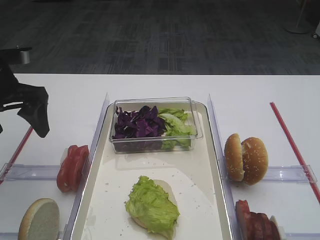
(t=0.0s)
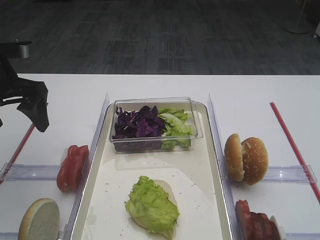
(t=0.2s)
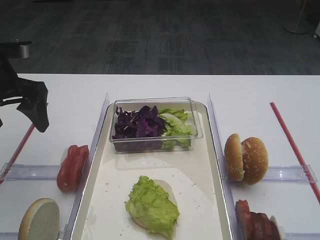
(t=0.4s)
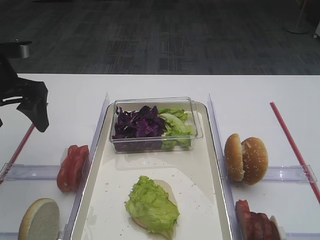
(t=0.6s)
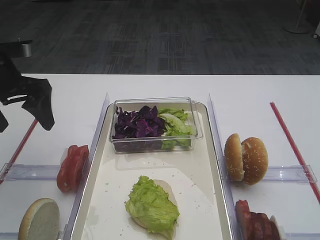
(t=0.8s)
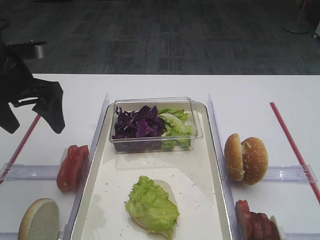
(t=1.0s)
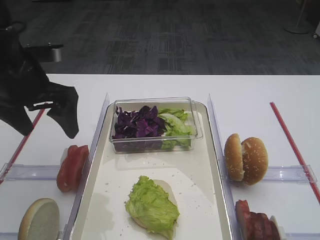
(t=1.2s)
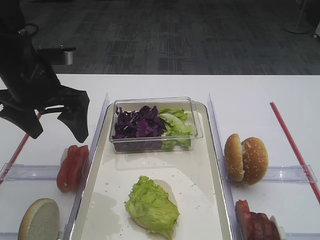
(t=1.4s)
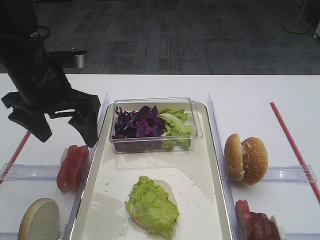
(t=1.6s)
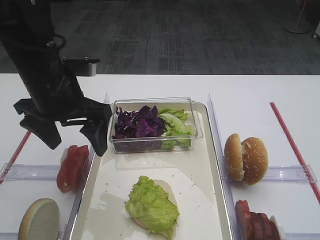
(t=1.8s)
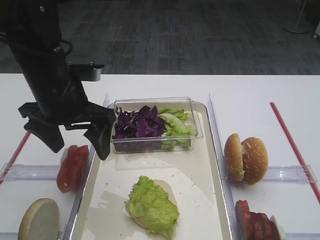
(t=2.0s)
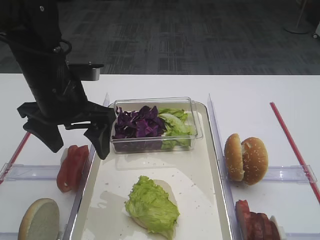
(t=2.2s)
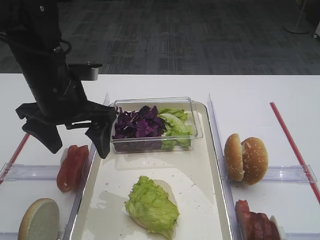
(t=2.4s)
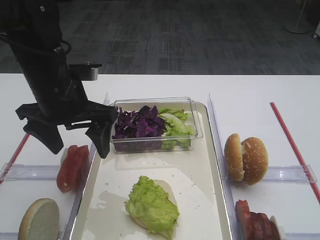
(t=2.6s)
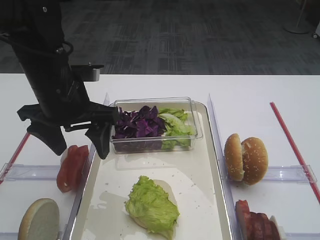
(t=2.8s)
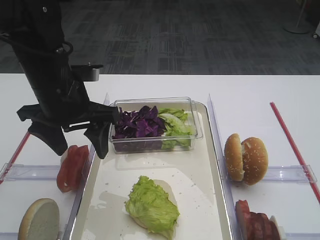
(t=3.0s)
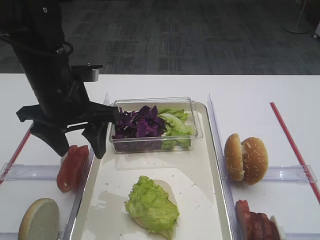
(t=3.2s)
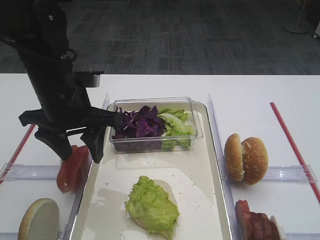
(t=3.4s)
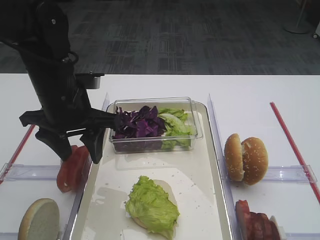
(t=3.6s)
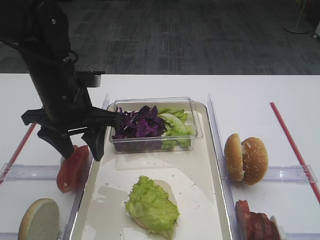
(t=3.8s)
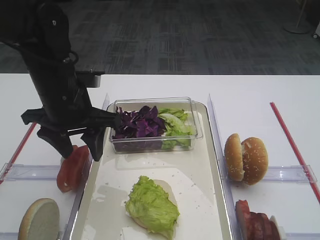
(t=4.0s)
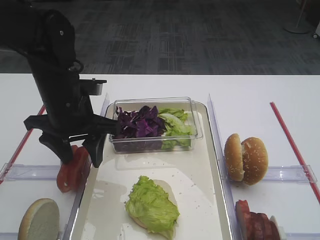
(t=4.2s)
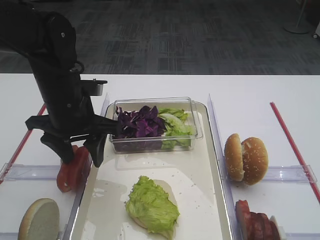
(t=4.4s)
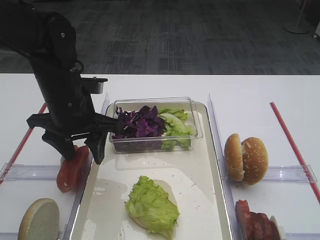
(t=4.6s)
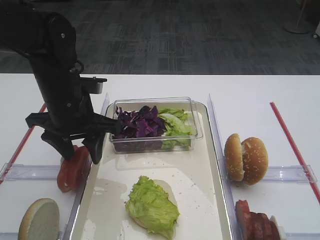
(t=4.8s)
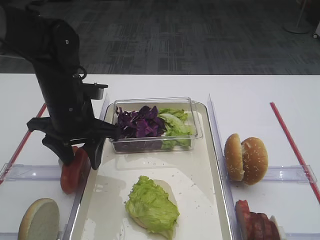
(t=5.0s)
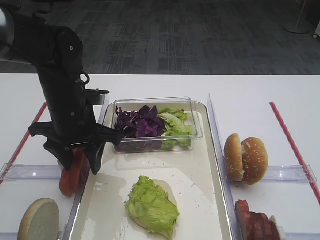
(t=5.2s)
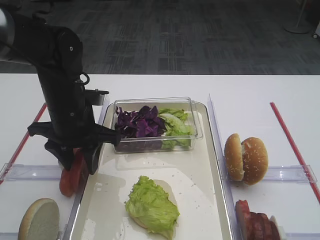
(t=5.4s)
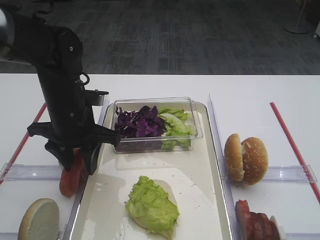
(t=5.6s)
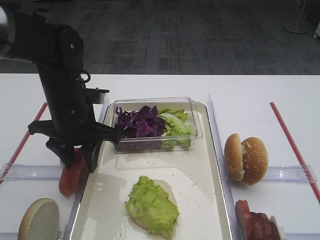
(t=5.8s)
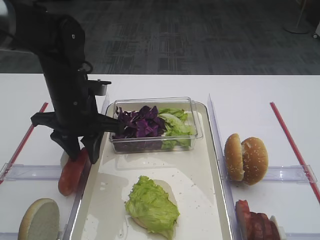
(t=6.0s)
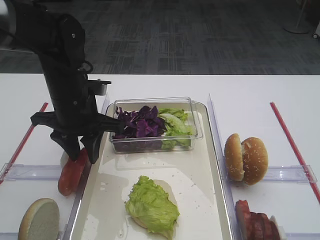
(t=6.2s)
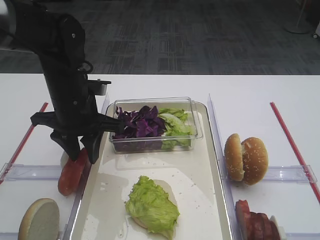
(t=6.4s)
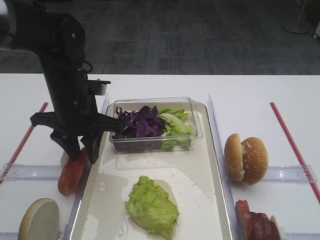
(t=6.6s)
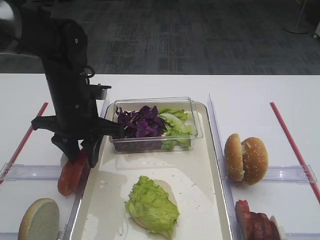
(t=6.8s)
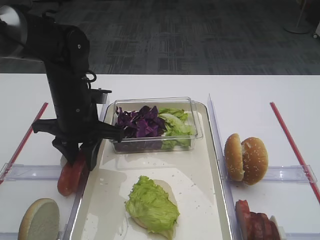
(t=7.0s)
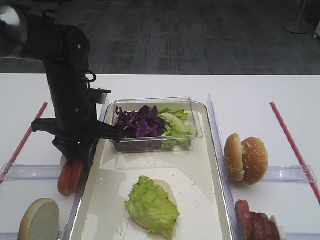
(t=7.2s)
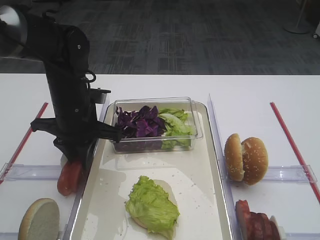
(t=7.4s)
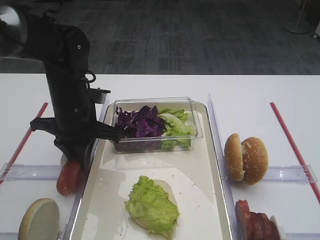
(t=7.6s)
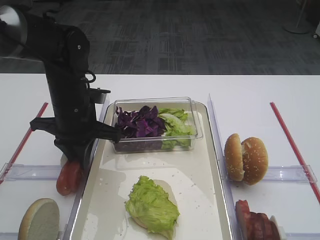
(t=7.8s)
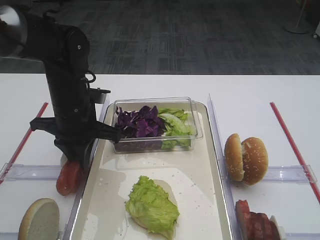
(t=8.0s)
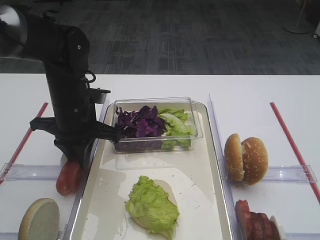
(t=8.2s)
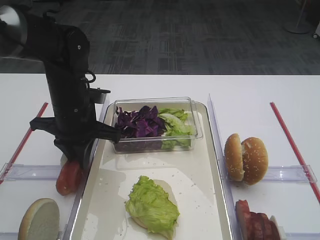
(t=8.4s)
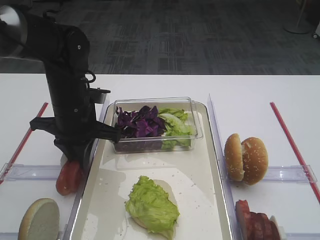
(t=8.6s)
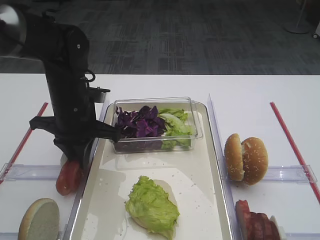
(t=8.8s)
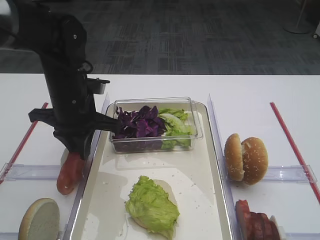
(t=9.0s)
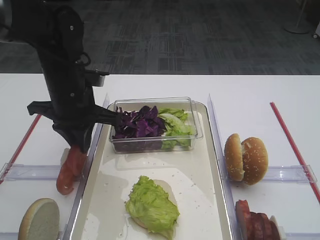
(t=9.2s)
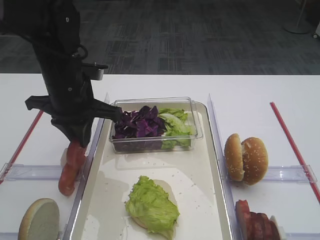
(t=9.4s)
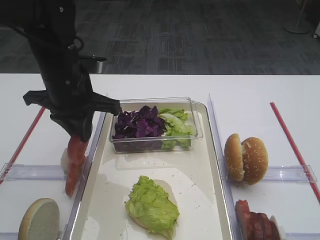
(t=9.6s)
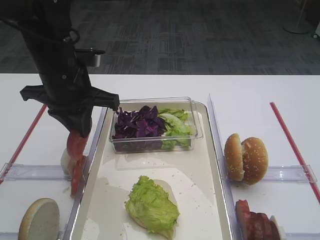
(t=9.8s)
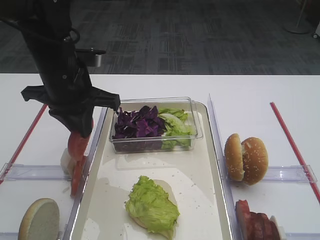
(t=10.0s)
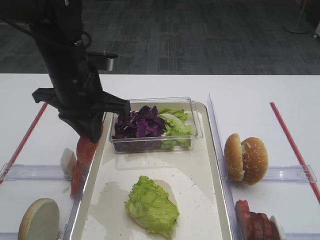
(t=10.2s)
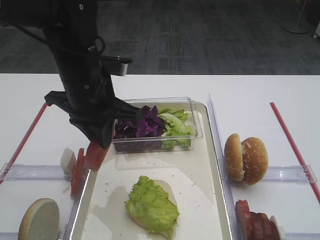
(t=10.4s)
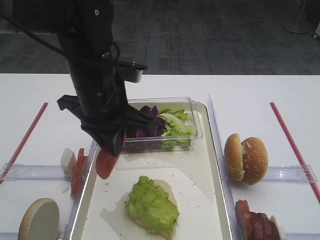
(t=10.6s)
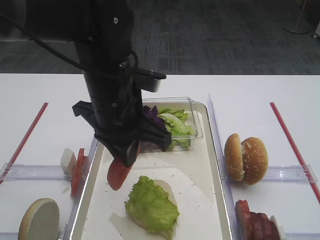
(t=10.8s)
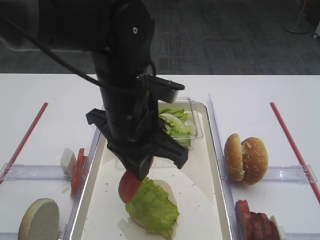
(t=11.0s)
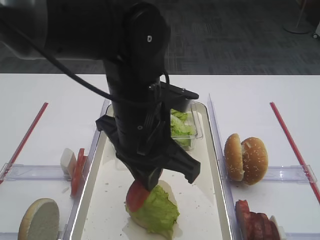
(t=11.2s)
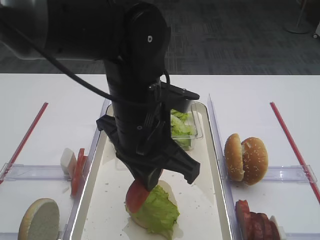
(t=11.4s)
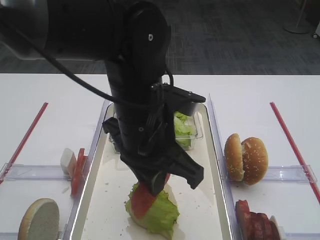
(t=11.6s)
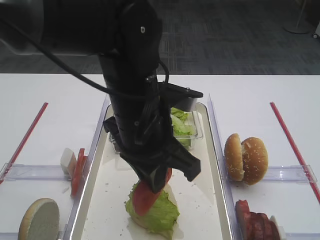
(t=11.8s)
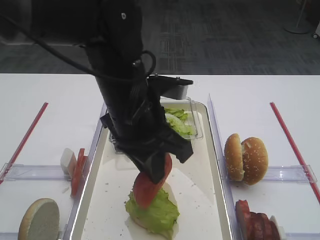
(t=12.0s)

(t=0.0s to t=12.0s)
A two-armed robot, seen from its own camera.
Step, t=0.0s - t=9.4s: Pick up the tomato slice with the left gripper.
t=0.0s - t=1.6s: The left gripper goes approximately 10 cm to the right.
t=1.6s - t=4.4s: The grippers make only small movements.
t=4.4s - t=7.6s: There are only small adjustments of the grippers.
t=7.6s - t=9.0s: The two grippers keep their place.
t=9.0s - t=10.4s: The left gripper shifts roughly 5 cm upward.
t=10.4s - t=12.0s: The left gripper shifts approximately 10 cm to the right and backward.

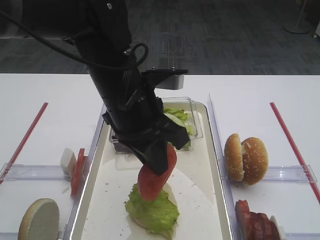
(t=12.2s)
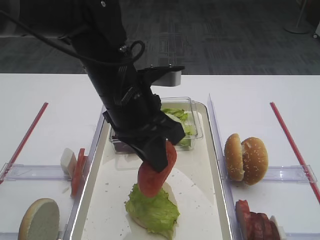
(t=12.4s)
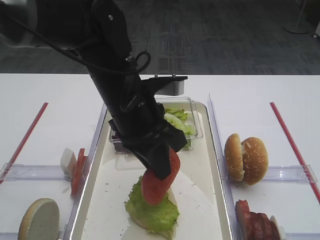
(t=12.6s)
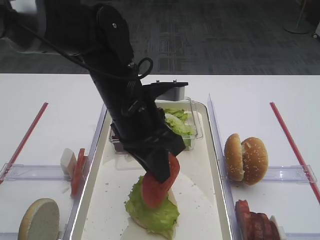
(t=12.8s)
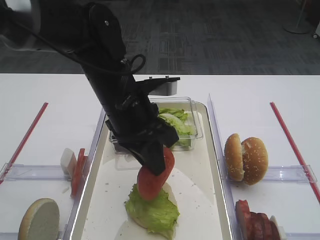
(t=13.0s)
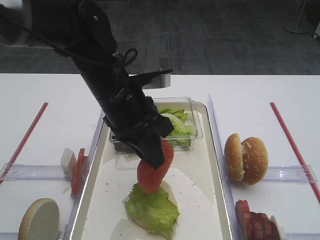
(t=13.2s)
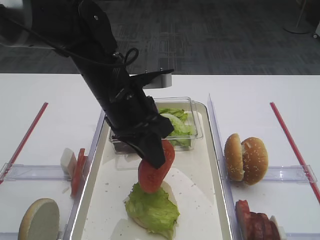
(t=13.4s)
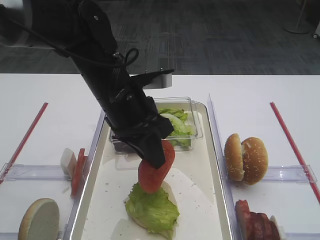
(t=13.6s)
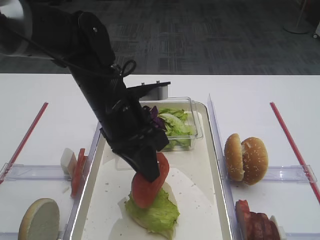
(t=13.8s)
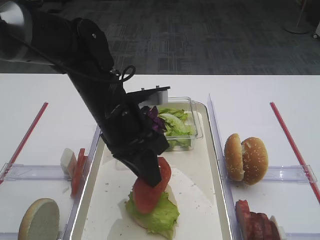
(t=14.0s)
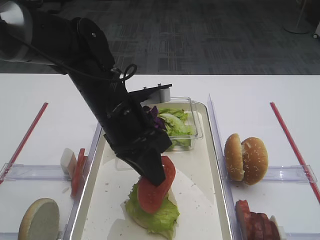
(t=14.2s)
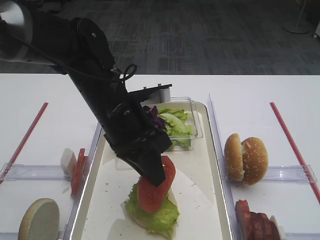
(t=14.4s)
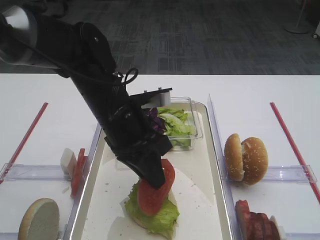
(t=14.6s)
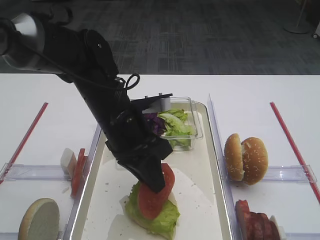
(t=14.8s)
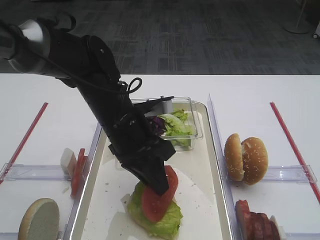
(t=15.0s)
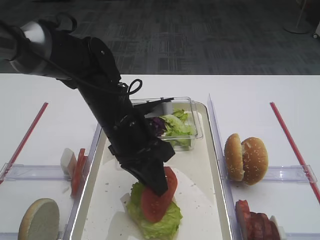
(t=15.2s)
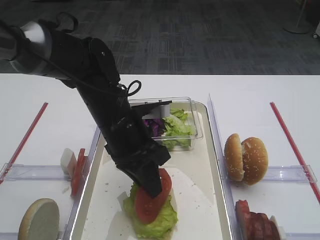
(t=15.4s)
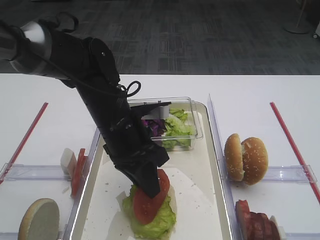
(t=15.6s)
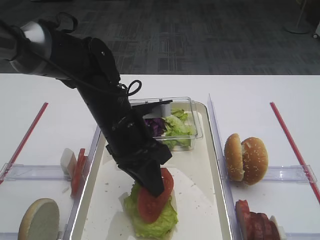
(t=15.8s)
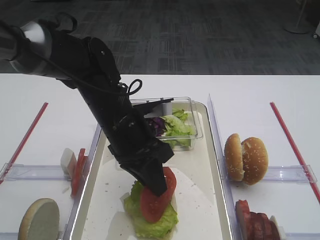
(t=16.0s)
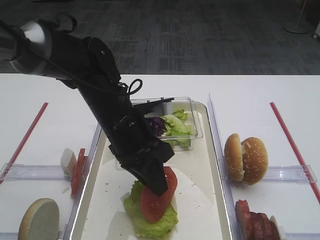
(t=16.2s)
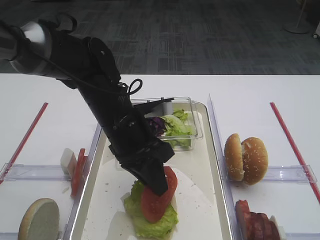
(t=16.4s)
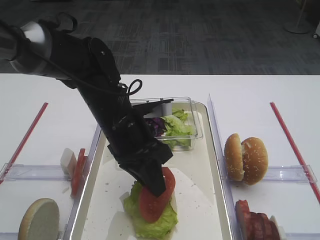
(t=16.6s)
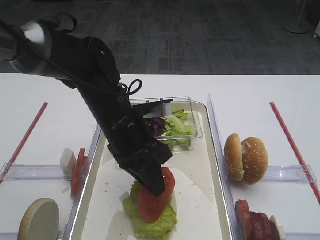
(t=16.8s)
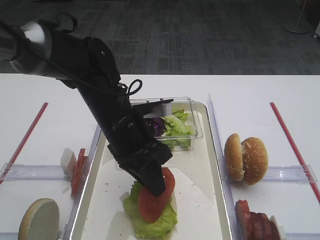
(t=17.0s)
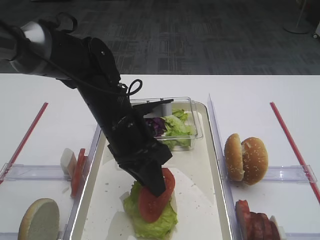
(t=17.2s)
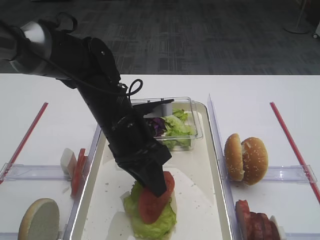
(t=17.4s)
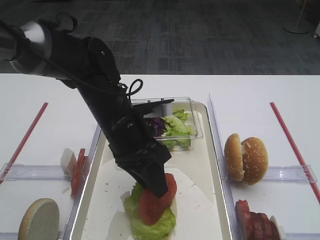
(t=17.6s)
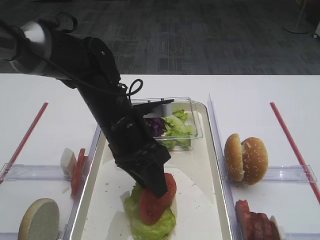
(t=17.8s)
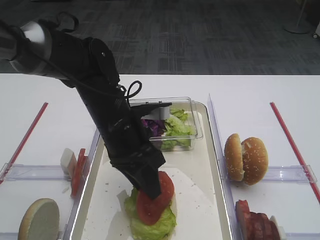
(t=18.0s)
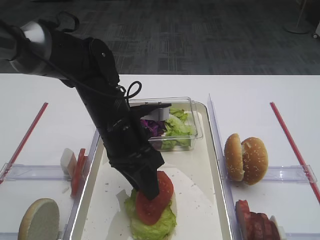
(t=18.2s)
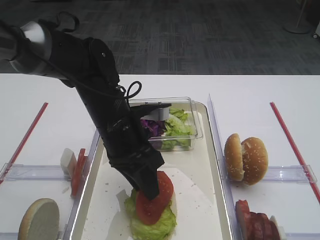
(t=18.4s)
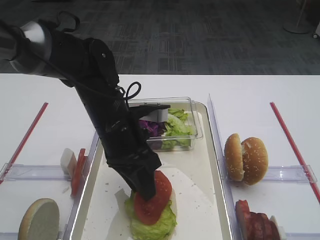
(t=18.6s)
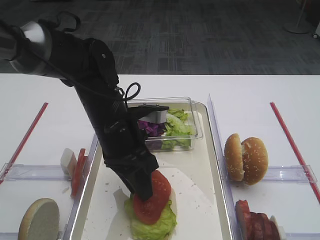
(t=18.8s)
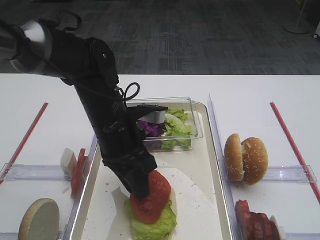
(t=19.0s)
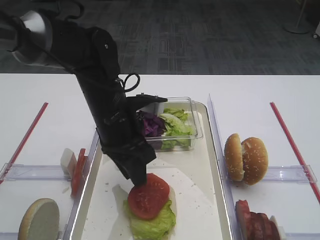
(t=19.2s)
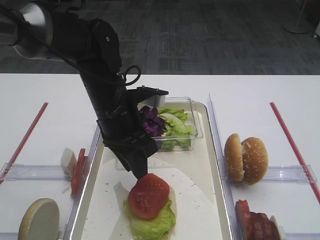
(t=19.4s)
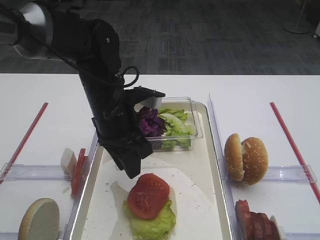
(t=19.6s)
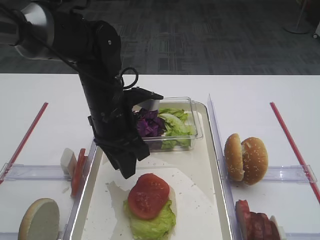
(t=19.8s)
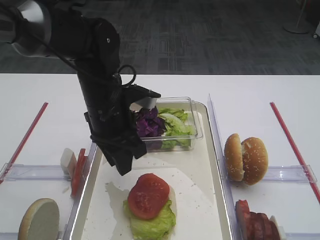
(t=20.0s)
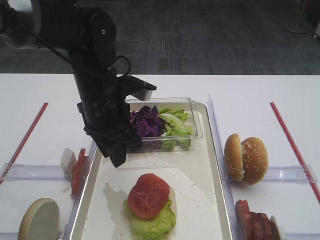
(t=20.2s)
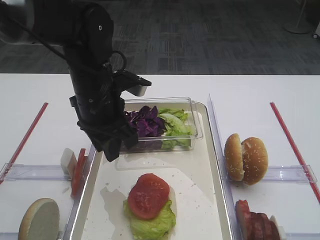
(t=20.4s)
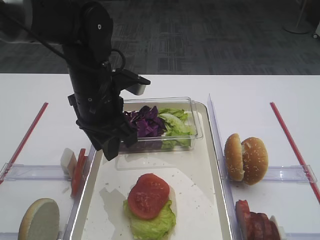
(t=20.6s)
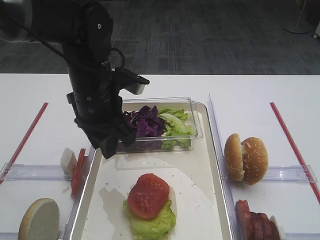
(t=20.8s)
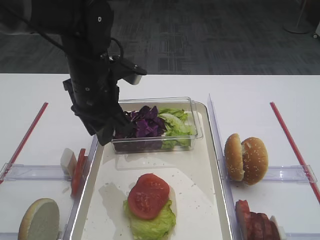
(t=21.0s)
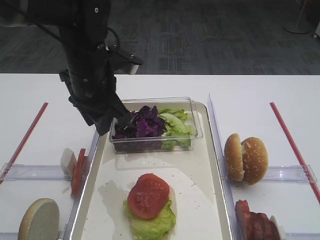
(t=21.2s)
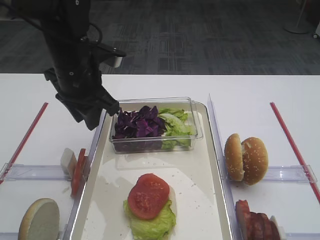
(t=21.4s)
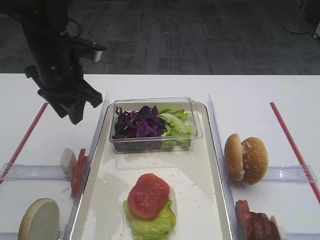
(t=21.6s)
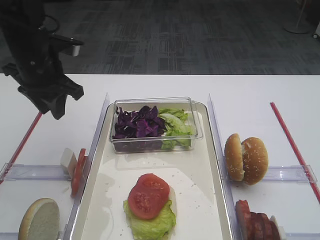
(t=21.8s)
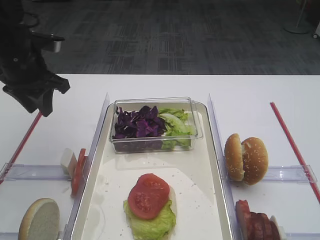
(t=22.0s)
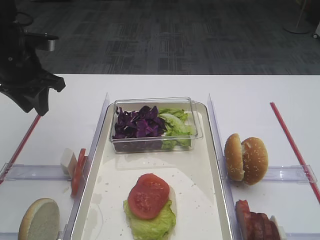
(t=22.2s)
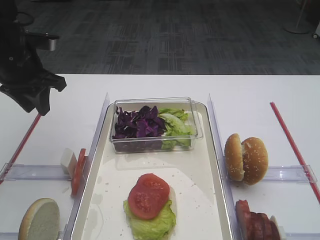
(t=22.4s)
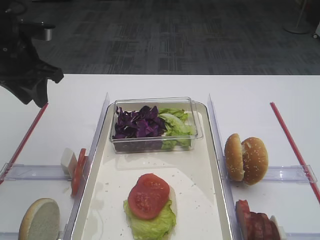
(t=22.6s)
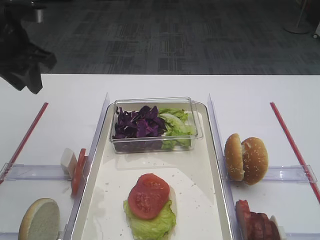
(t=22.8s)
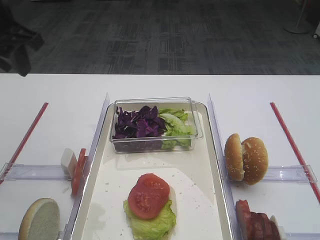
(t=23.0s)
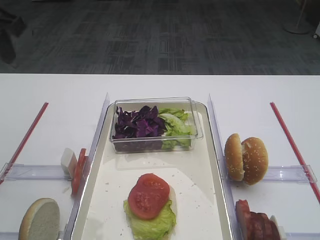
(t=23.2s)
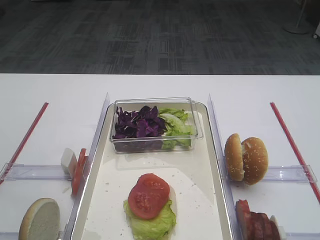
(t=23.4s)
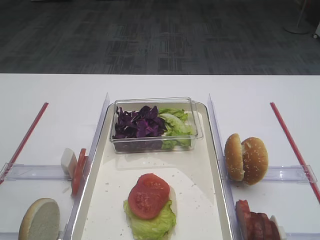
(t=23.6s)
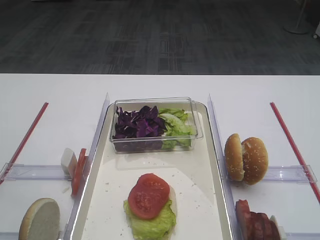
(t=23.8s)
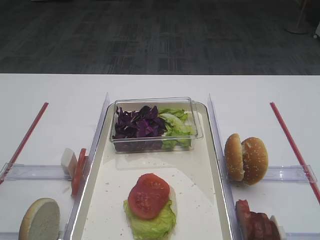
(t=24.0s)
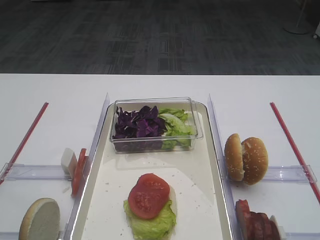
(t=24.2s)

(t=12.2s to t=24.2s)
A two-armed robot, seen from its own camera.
Step, t=12.2s - t=20.6s: Place the tomato slice on the lettuce leaf with the left gripper.
t=12.2s - t=13.8s: The left gripper ends up roughly 5 cm from where it was.
t=13.8s - t=15.2s: The grippers move only a little.
t=15.2s - t=16.6s: Both grippers stay put.
t=16.6s - t=18.2s: The grippers move only a little.
t=18.2s - t=19.8s: The grippers stay close to where they were, moving slightly.
t=19.8s - t=21.2s: The left gripper goes roughly 5 cm upward.
t=21.2s - t=22.6s: The left gripper shifts some 15 cm to the left.
t=22.6s - t=24.2s: The left gripper shifts about 30 cm backward and upward.
